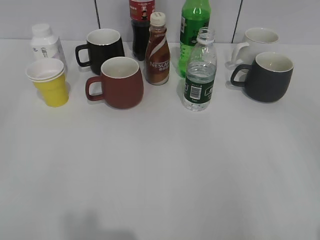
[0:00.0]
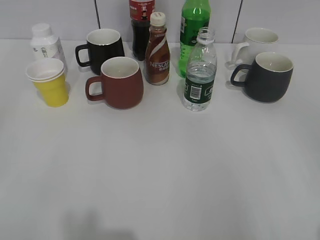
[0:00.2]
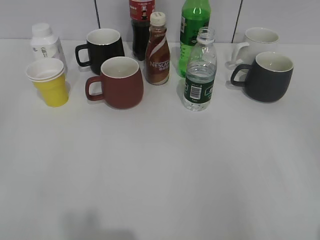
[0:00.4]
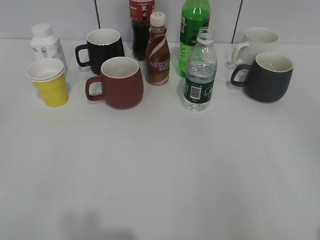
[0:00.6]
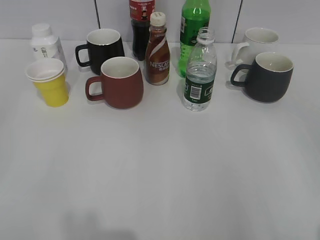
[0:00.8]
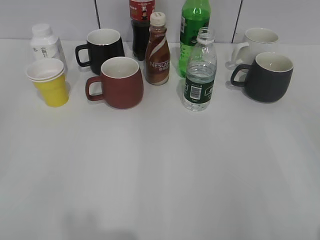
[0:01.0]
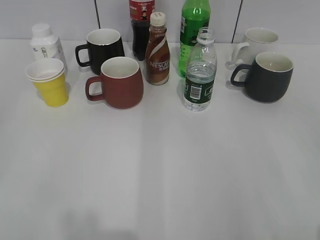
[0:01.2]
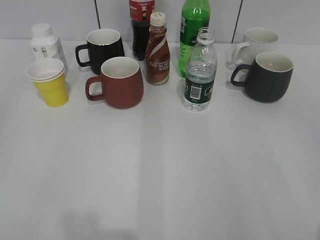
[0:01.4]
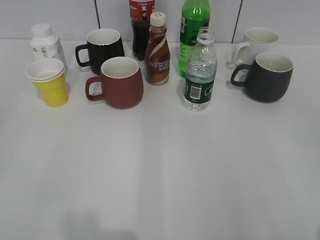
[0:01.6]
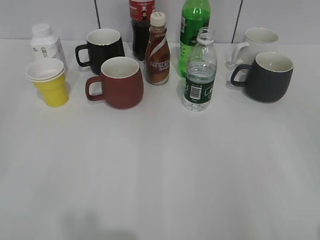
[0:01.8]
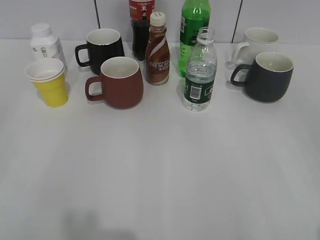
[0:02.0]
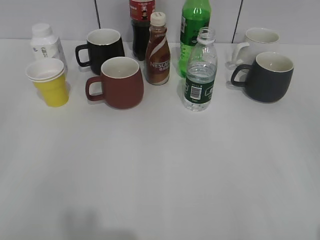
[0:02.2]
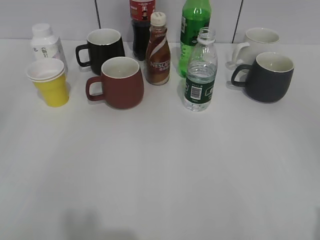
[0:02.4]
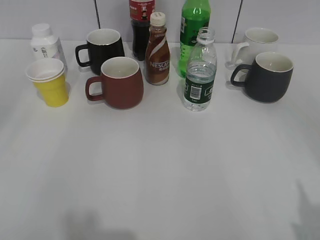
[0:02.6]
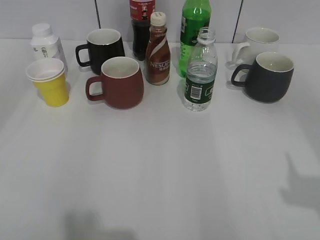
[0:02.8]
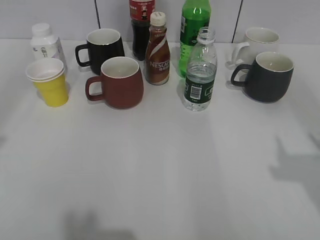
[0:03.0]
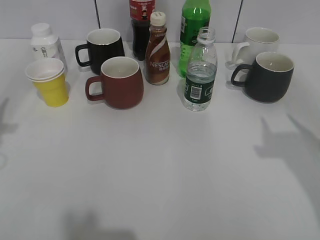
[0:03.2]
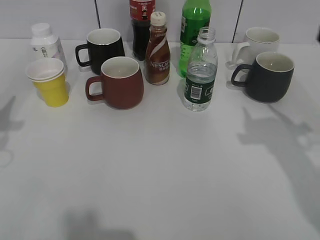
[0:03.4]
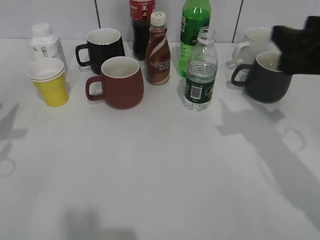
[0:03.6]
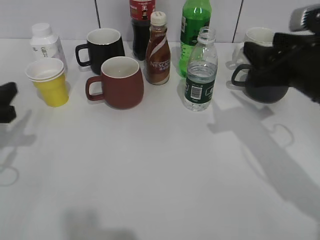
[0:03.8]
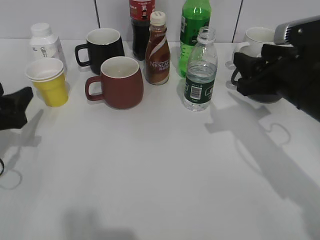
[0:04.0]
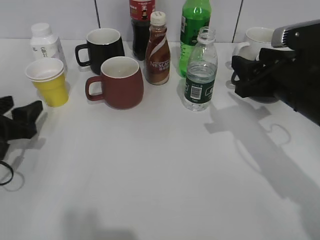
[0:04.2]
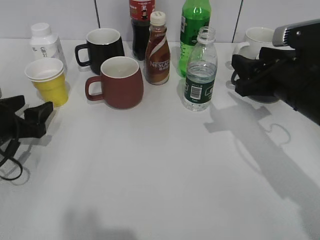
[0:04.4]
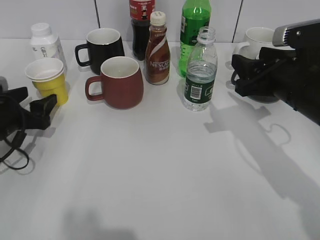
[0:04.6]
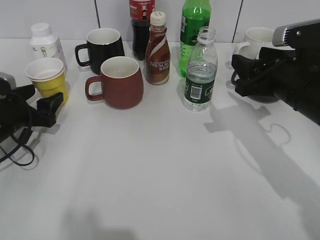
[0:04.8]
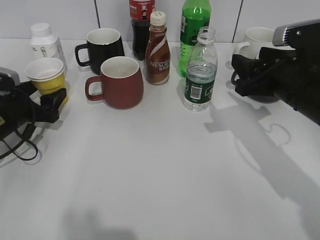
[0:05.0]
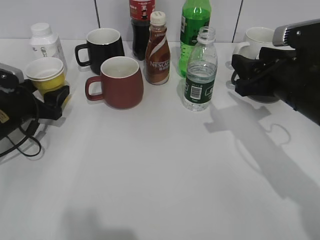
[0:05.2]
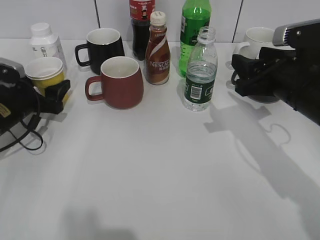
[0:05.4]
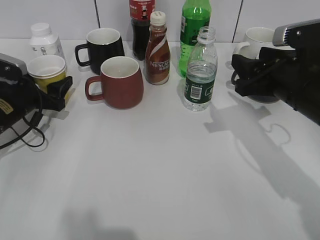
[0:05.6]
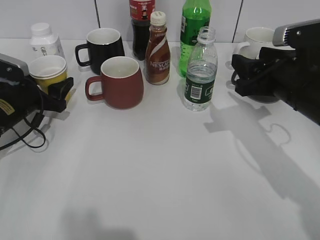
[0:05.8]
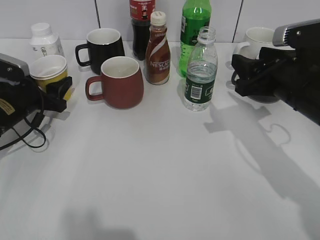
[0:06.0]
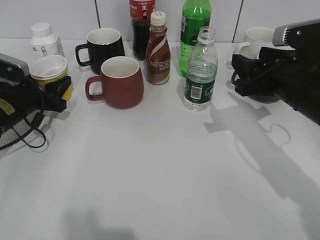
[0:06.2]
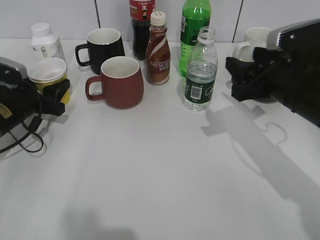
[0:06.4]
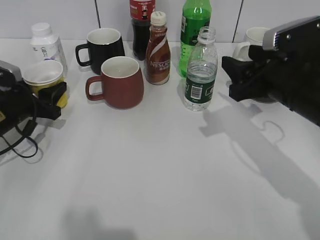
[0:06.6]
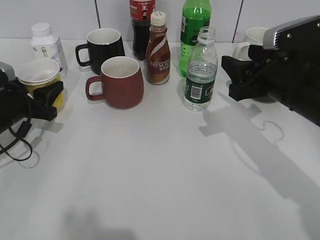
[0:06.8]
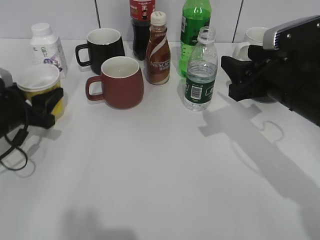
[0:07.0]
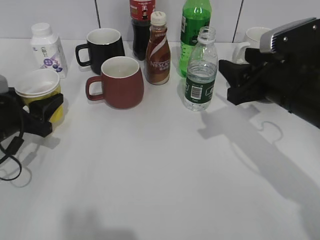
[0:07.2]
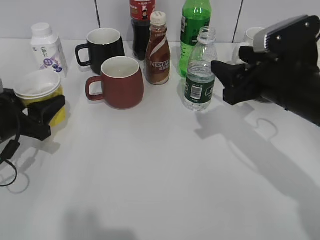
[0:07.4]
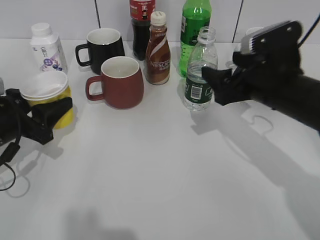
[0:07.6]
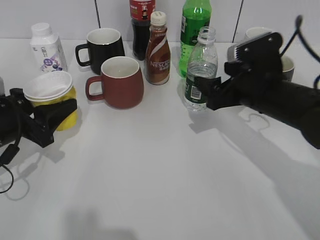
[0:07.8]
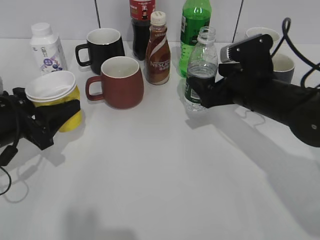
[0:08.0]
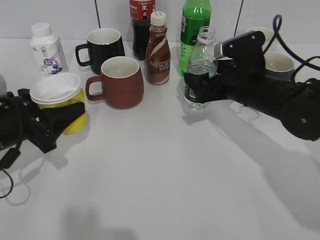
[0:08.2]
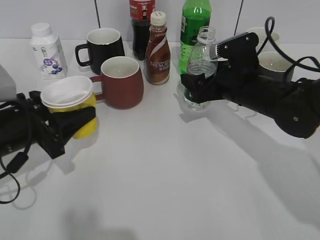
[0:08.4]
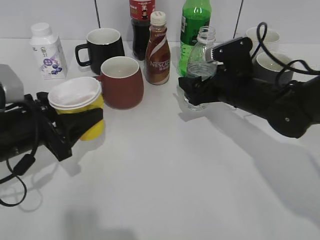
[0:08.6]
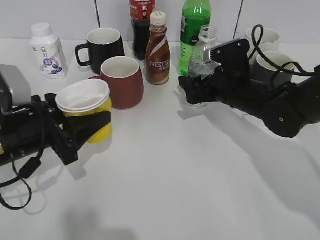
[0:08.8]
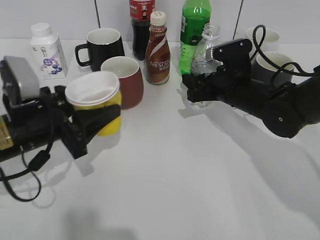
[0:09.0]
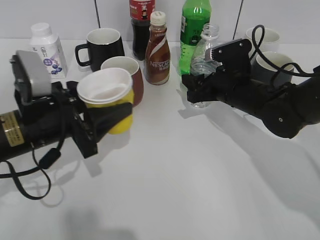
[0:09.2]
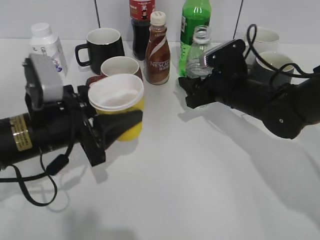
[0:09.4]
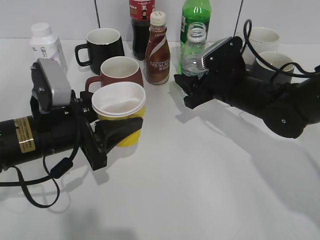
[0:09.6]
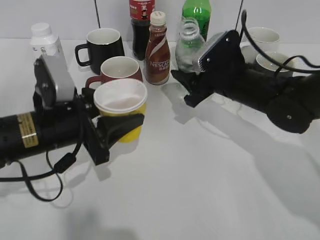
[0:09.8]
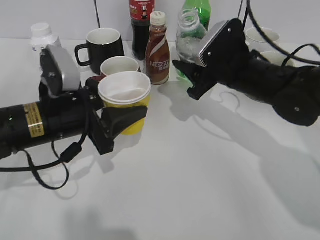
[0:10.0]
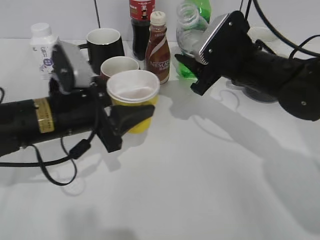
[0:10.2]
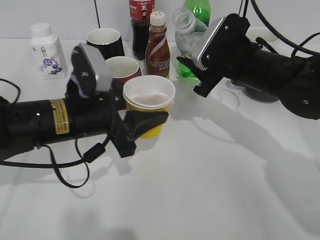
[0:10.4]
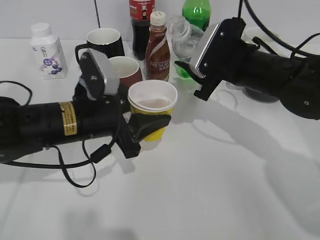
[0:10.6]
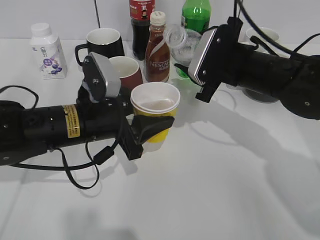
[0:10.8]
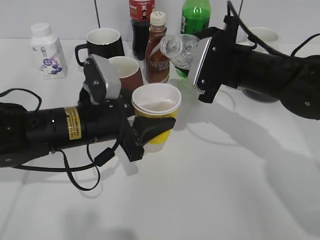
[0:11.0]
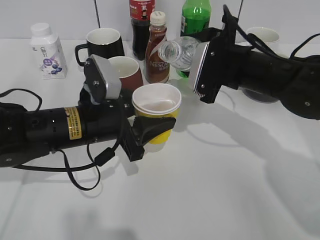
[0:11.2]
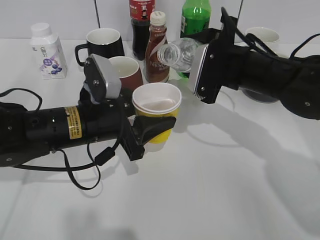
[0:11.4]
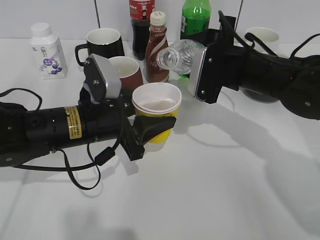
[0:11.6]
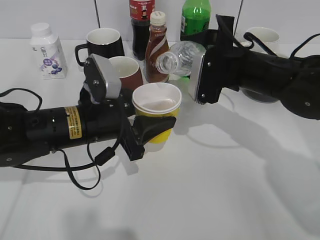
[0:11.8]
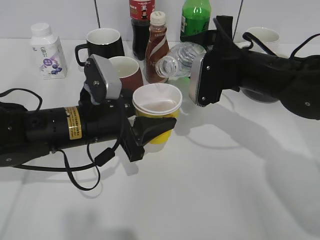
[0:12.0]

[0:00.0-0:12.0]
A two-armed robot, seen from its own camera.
Step, 0:00.0 to 0:06.2: Grasp the yellow paper cup with left gripper.
Step, 0:06.4 to 0:07.4: Lift the yellow paper cup with left gripper.
Step, 0:07.6 to 0:09.2: Grasp the bottle with water with right gripper.
0:01.6 to 0:03.0: The left gripper goes about 15 cm forward. Meanwhile the right gripper travels forward by some 10 cm.
0:03.0 to 0:04.4: The right gripper goes some 25 cm forward, downward and to the left, and closes up. The left gripper is displaced downward and forward by about 25 cm, and opens up.
0:04.4 to 0:06.0: The left gripper shifts about 10 cm forward.
0:06.0 to 0:07.6: The left gripper heads backward, covering approximately 10 cm. Meanwhile the right gripper opens up.
0:07.6 to 0:09.0: The left gripper is displaced to the right by some 5 cm. The right gripper heads forward and downward, covering roughly 10 cm, and closes.
0:09.0 to 0:10.4: The left gripper heads to the right, covering some 5 cm; the right gripper is displaced upward by about 5 cm.

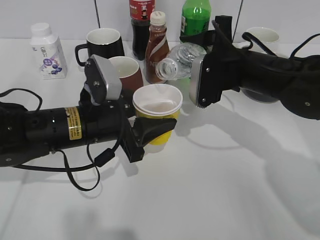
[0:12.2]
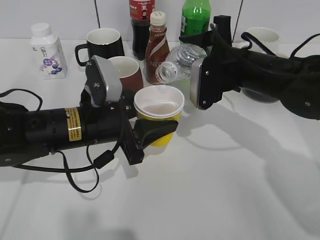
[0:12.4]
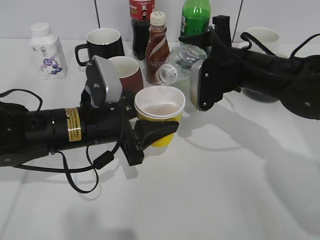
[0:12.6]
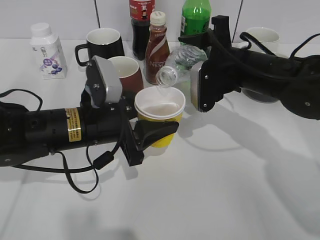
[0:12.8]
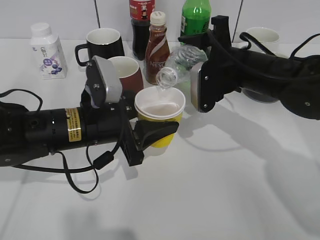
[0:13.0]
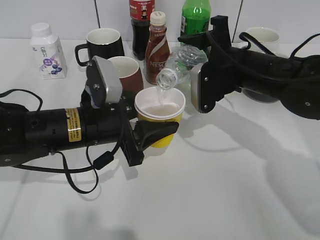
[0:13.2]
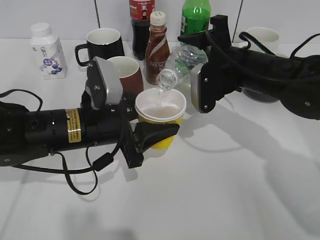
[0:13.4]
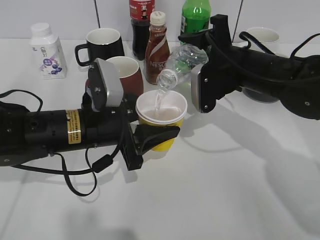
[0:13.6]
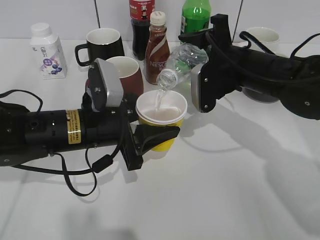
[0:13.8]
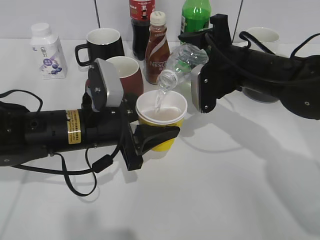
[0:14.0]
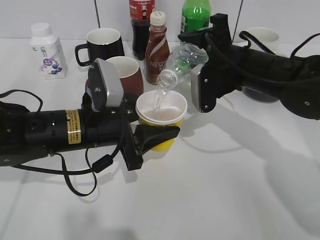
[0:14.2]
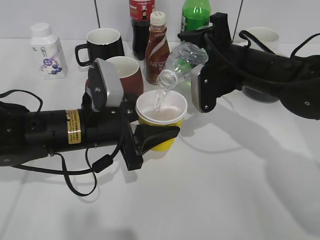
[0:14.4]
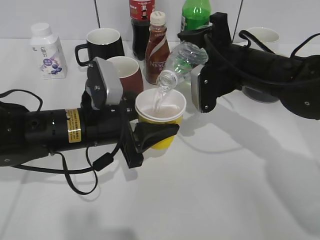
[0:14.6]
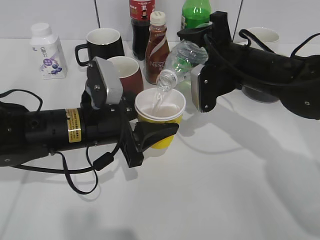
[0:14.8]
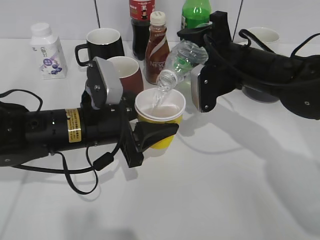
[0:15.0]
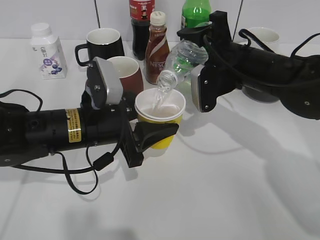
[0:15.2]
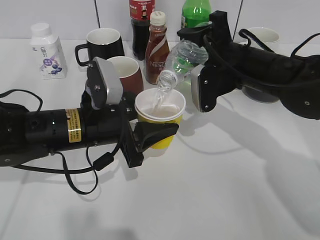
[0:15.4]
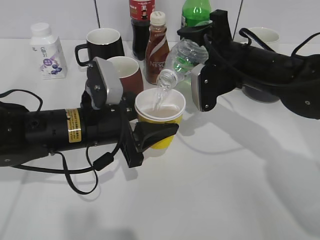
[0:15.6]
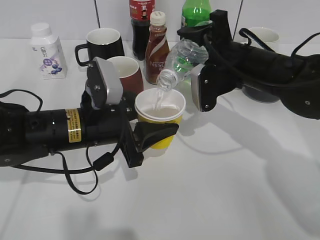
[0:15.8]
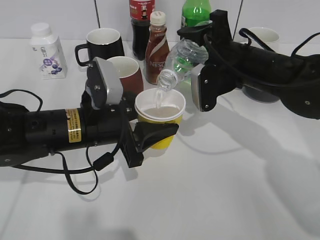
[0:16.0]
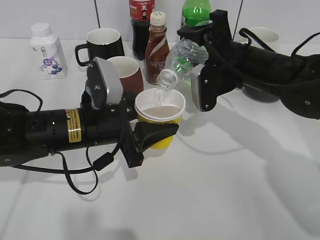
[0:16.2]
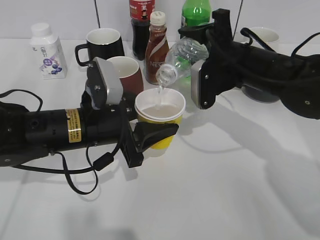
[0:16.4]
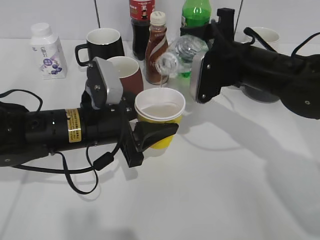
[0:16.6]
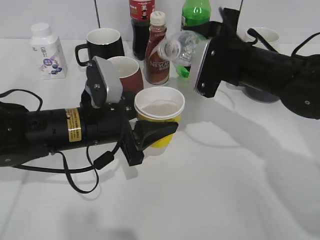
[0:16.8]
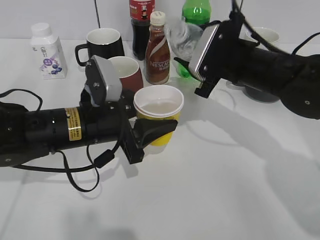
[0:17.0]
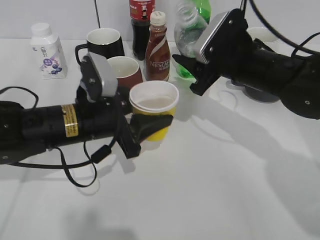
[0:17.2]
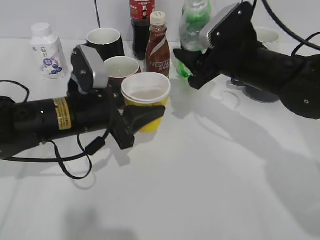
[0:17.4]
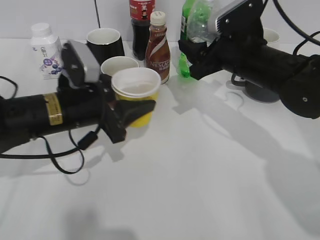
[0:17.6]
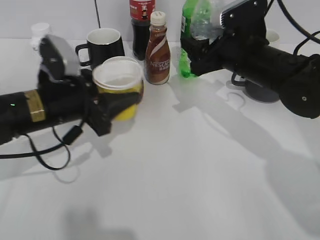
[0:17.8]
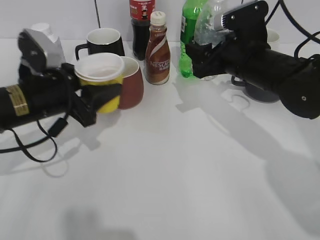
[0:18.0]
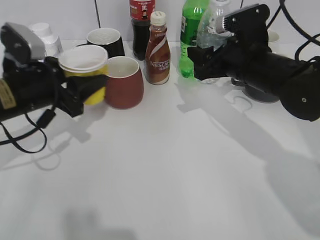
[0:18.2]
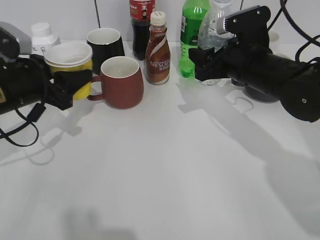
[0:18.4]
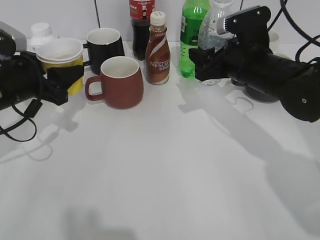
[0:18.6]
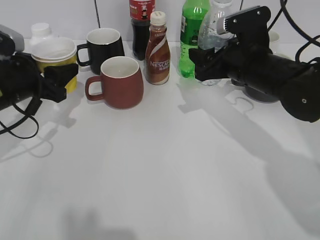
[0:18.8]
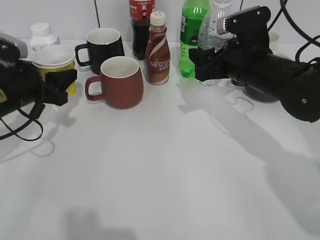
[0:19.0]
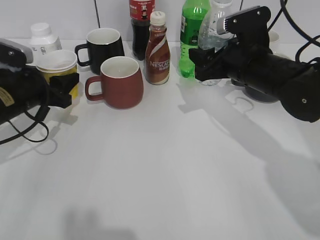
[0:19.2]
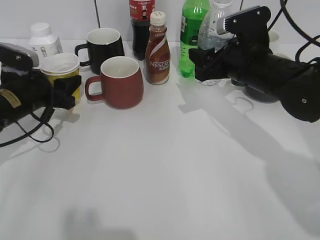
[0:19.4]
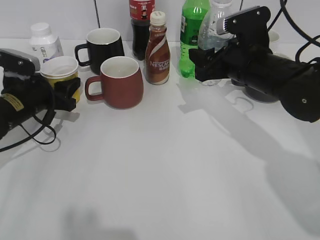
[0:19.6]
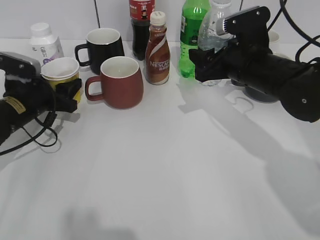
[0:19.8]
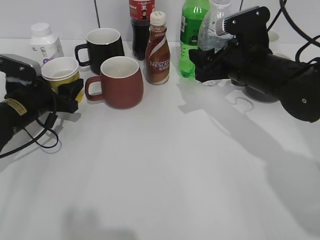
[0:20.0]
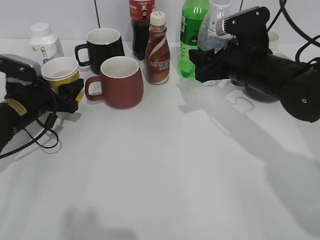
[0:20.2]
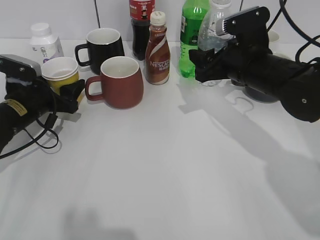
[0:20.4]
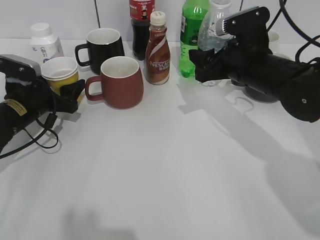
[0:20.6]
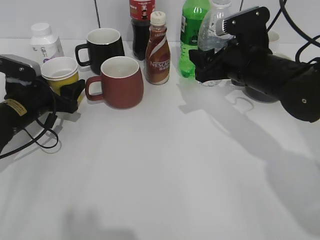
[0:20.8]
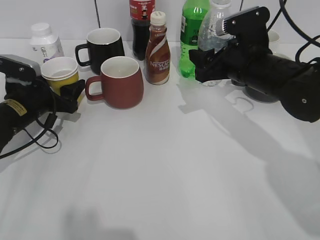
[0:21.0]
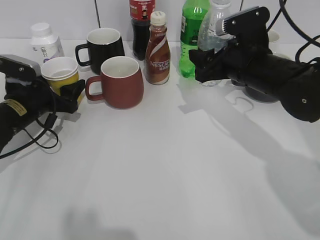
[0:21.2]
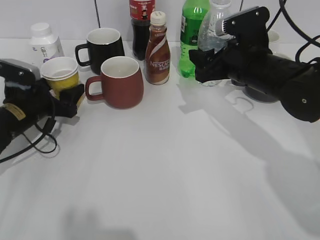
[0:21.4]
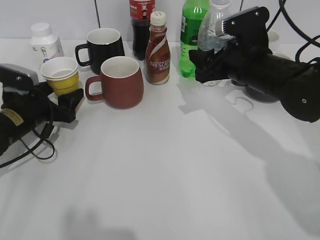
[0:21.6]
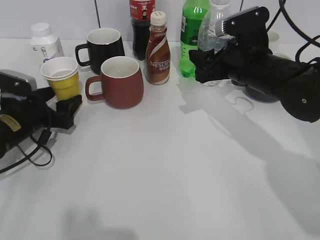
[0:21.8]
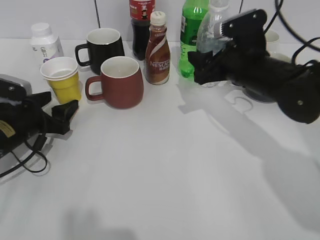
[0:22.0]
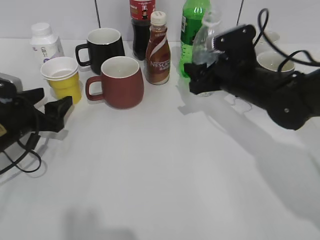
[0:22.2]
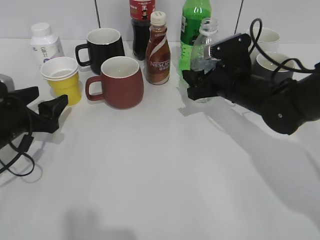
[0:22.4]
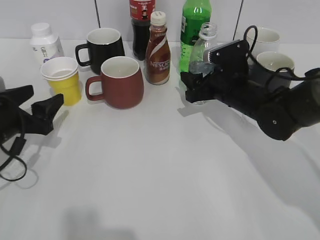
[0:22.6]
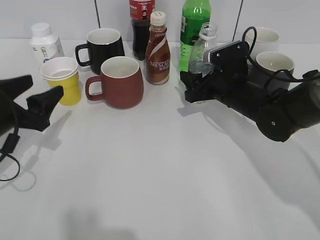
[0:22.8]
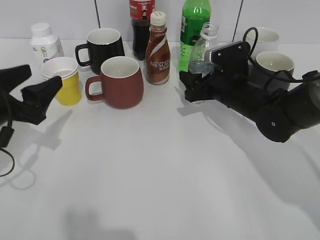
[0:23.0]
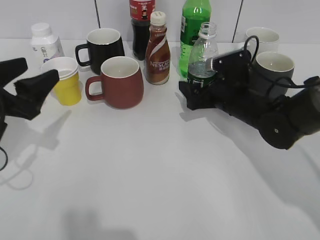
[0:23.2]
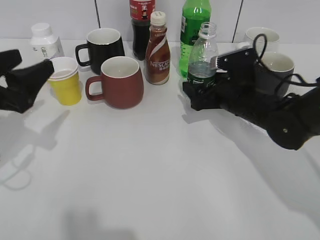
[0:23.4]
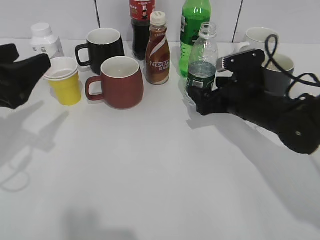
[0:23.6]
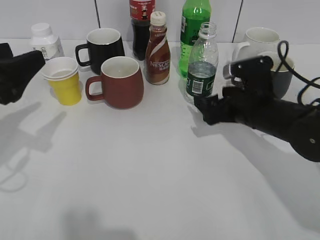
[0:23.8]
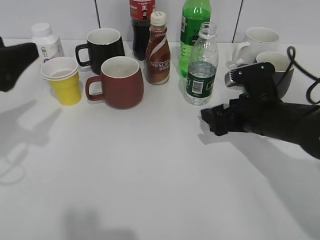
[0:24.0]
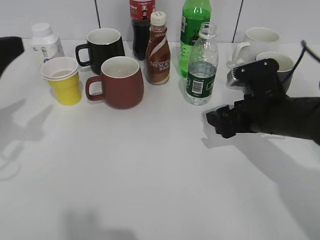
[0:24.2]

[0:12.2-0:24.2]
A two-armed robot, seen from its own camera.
Step, 0:12.2 to 0:16.8: Pour the water from bottle to cup with right gripper.
Step, 0:17.0 to 0:21.6: Place the yellow paper cup on the table with left gripper.
Step, 0:21.8 to 0:23.4: Place the water bottle on the table with right gripper.
0:12.2 to 0:16.6: The grippers move only a little.
0:16.6 to 0:18.2: The left gripper shifts approximately 10 cm to the left.
0:18.2 to 0:19.8: The left gripper travels downward and forward by some 10 cm.
0:19.8 to 0:21.2: The left gripper opens its fingers.
0:21.2 to 0:22.6: The left gripper is displaced backward by some 10 cm, while the right gripper goes some 5 cm downward.
0:22.6 to 0:24.2: The left gripper travels upward by roughly 15 cm. The right gripper goes approximately 5 cm backward, and opens its fingers.
